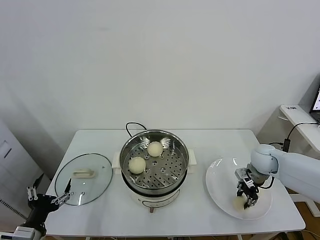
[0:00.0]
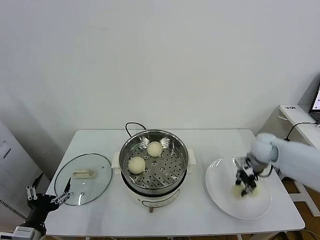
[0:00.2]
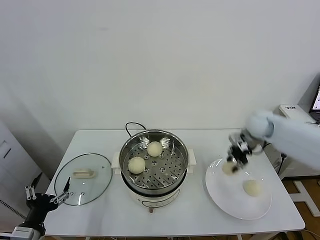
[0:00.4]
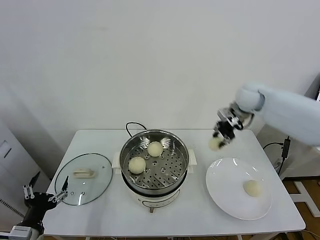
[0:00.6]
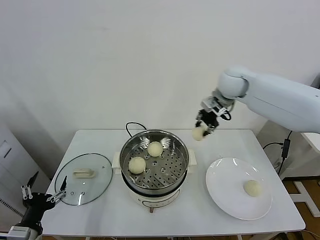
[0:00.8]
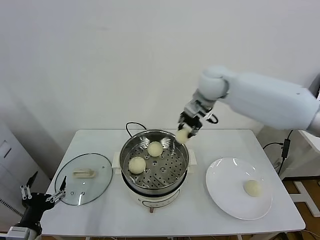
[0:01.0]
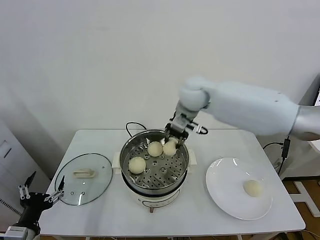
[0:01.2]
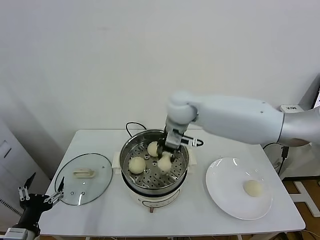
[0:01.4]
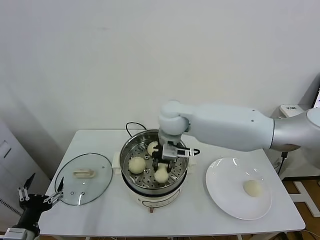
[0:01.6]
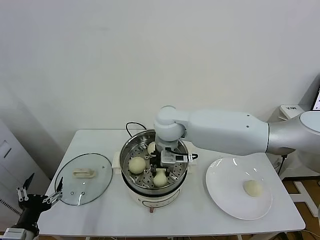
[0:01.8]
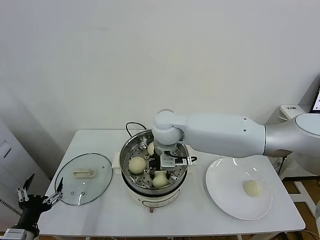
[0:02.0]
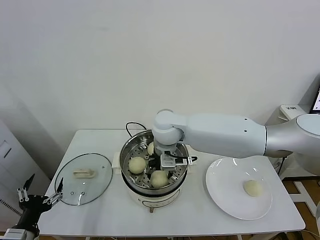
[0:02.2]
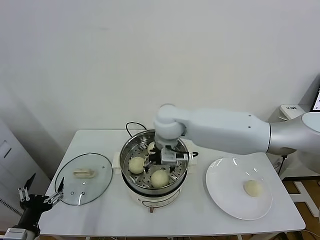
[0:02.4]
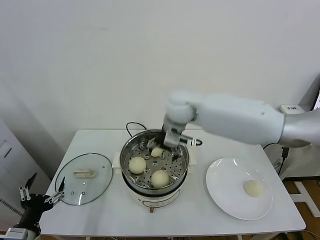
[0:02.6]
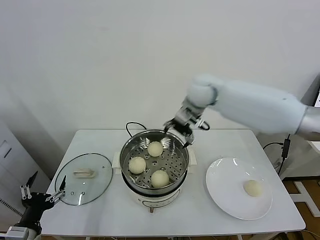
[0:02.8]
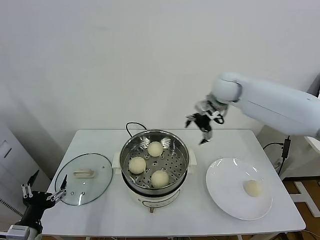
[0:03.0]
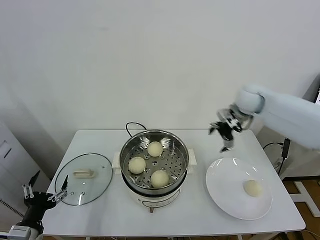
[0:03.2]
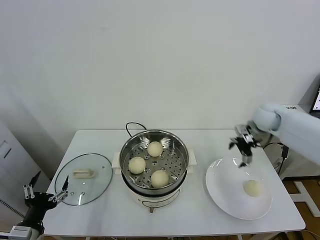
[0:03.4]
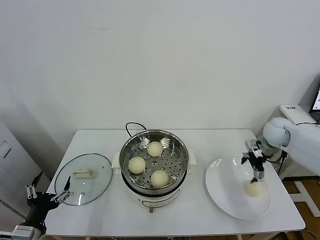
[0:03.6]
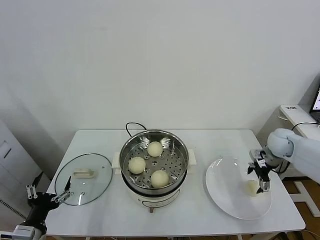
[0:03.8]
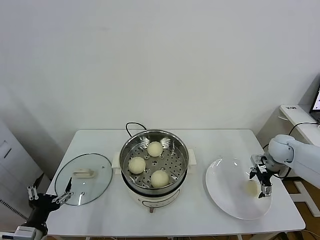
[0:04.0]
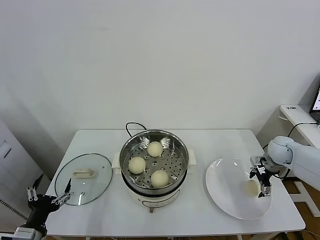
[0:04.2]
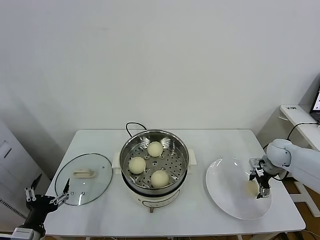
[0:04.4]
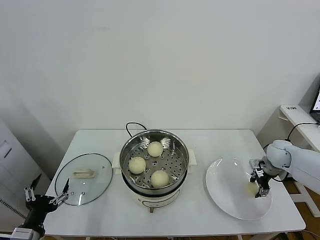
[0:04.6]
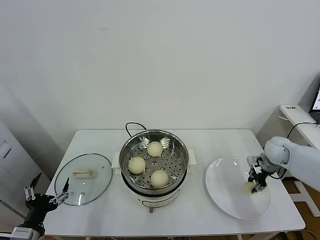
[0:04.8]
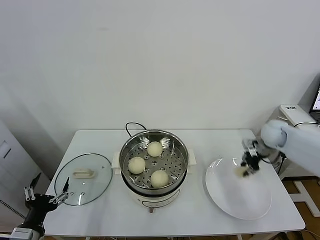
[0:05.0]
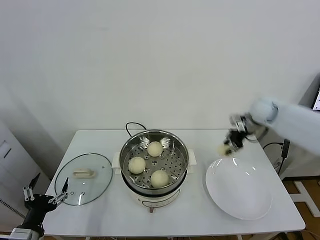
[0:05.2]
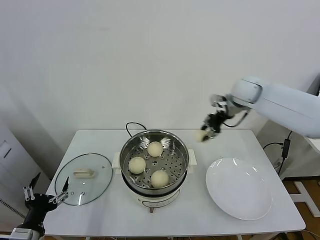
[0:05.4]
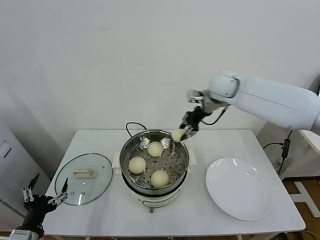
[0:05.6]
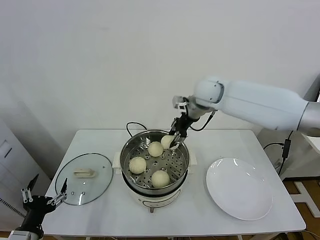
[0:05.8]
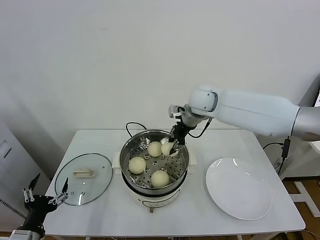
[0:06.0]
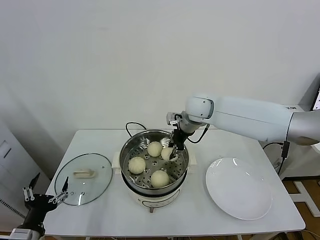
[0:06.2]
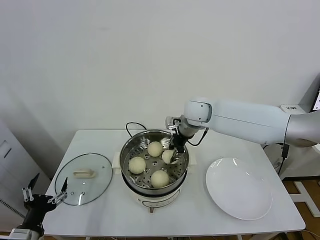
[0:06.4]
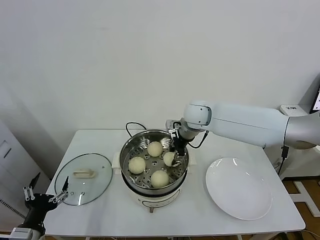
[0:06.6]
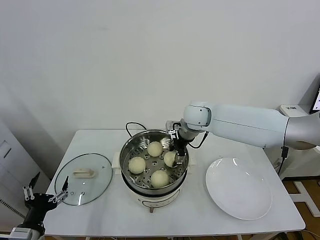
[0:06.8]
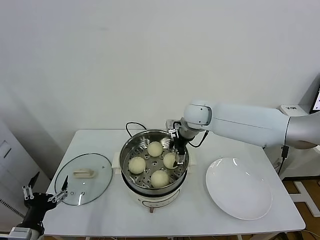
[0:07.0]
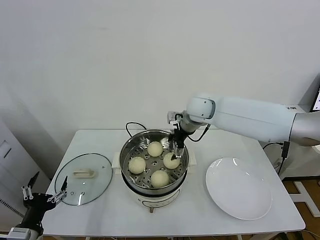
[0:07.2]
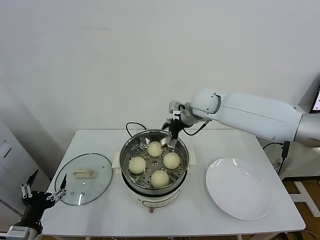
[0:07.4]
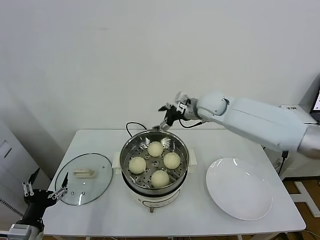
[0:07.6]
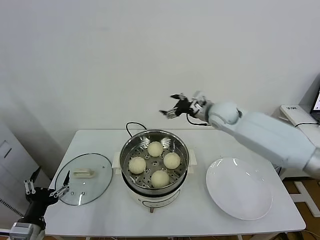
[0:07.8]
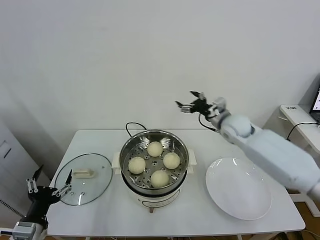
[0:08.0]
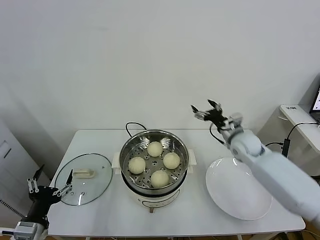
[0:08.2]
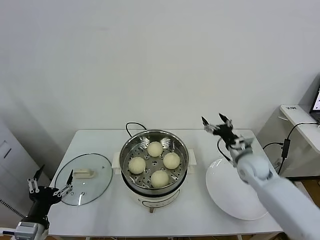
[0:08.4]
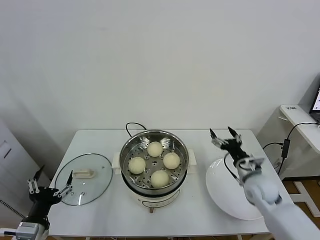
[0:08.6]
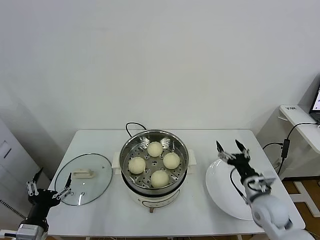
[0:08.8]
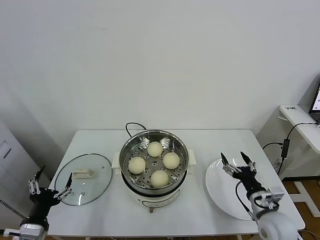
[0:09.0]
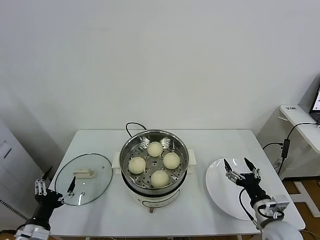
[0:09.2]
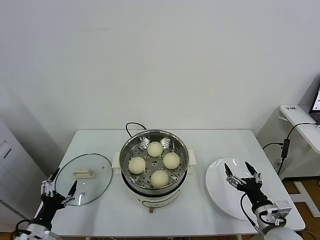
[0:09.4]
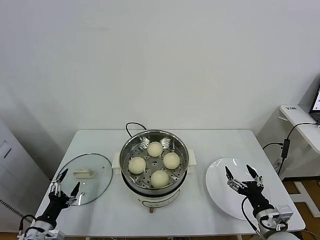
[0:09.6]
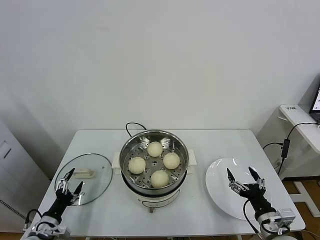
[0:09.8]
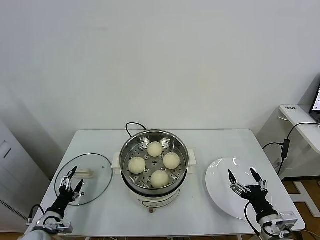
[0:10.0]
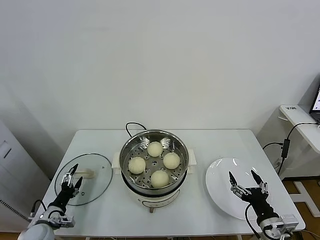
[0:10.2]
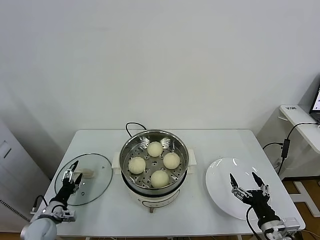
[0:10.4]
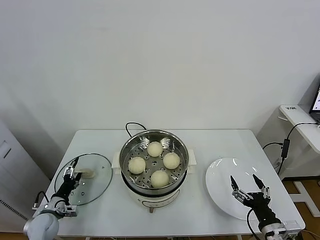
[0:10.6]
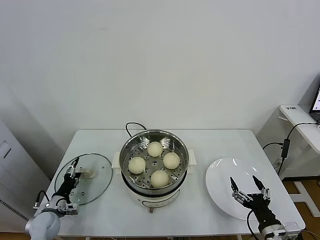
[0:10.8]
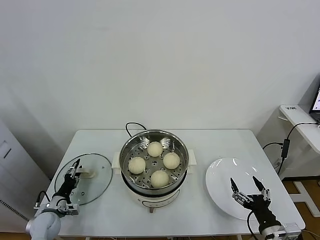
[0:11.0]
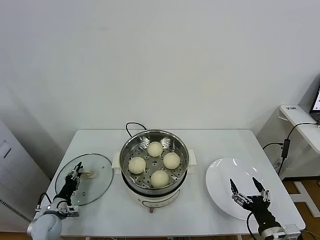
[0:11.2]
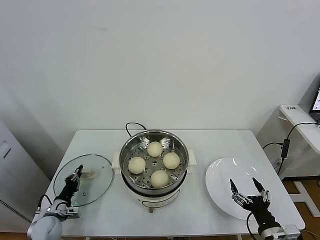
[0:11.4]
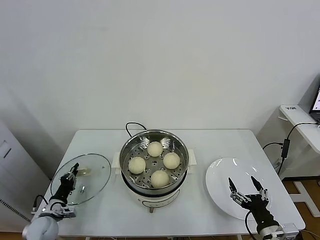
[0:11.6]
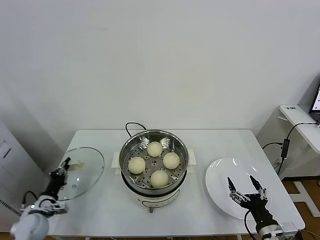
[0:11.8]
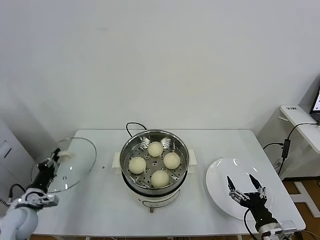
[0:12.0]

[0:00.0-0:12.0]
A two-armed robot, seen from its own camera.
Task of the whole recording: take steamed baozi put them in steamer.
Step, 0:00.0 to 0:02.2: Place the baozi on the steamer with right gripper.
Step, 0:02.4 to 0:04.6: Grasp the baozi in the plate with right gripper.
Step, 0:04.8 to 0:07.0: Place the baozi on the steamer with right gripper.
Step, 0:07.2 to 0:11.4: Grasp the pot lid with left gripper.
0:00.0 to 0:01.6: The right gripper travels to the left and upward by some 40 cm.
0:01.6 to 0:03.0: The right gripper goes some 20 cm to the right and forward, and opens its fingers.
0:03.0 to 0:04.4: The right gripper shifts approximately 30 cm downward and to the right.
0:04.4 to 0:06.0: The right gripper shifts roughly 35 cm to the left and upward, and closes.
0:06.0 to 0:07.6: The right gripper opens.
0:07.6 to 0:09.0: The right gripper goes some 40 cm backward, downward and to the right.
0:09.0 to 0:10.4: The left gripper is displaced downward, forward and to the left by roughly 20 cm. Meanwhile the right gripper moves backward, about 10 cm.
0:10.4 to 0:12.0: The left gripper shifts some 5 cm upward, and closes up.

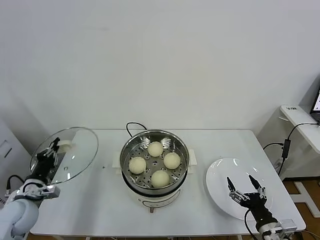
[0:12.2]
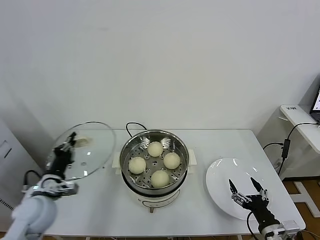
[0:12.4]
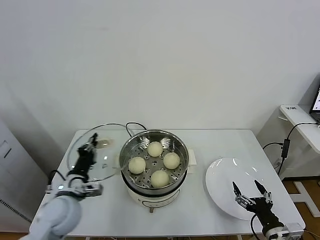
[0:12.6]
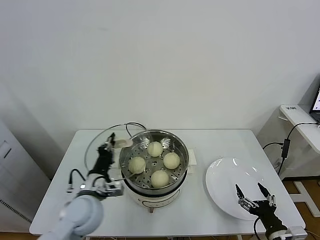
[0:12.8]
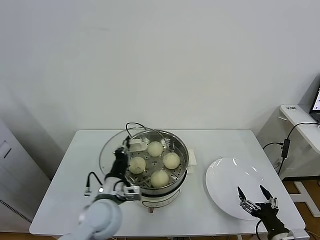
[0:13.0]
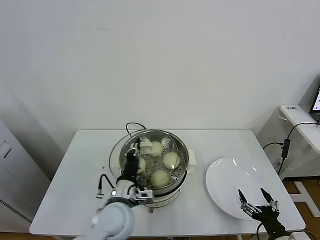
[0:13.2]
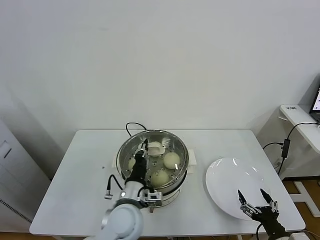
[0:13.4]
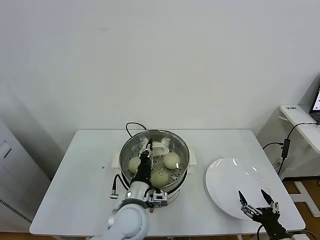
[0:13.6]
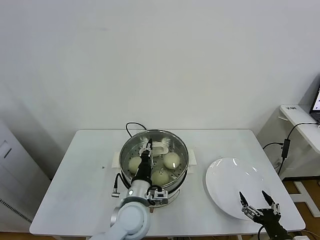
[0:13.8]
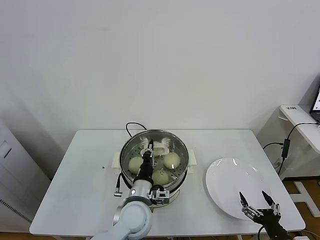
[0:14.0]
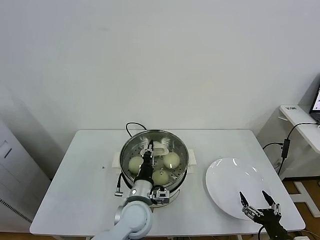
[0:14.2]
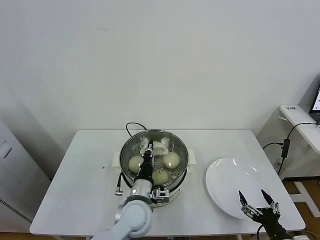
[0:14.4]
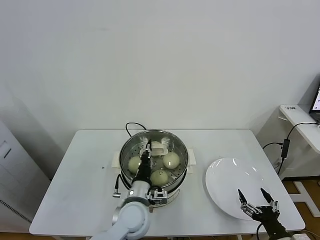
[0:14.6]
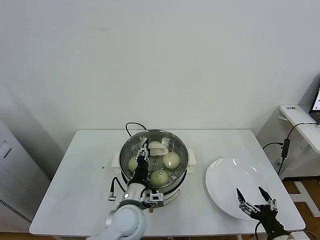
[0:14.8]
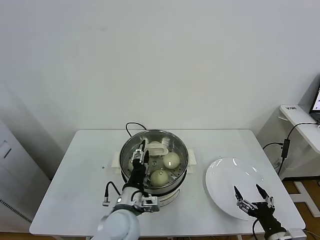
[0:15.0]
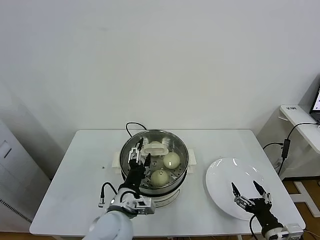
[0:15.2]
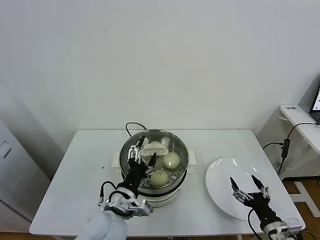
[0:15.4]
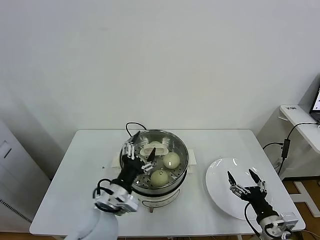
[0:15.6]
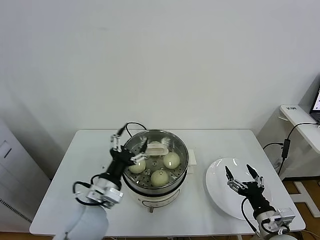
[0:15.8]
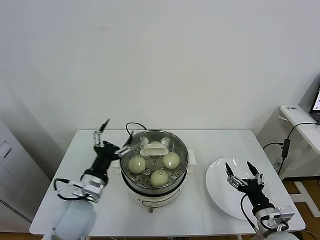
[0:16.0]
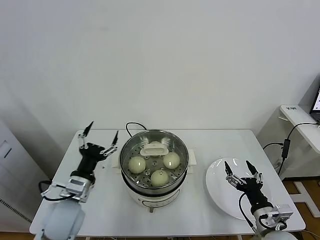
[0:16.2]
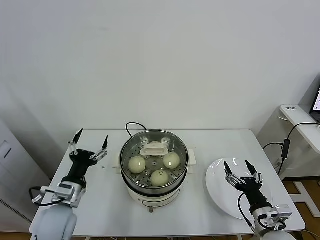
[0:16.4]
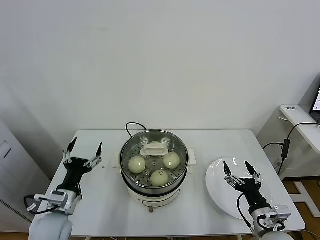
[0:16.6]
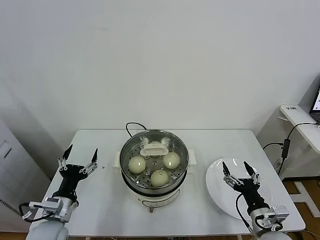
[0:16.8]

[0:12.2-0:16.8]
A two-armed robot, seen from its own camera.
Task of the whole recording: take steamed baozi put them in steamer.
Step, 0:12.2 to 0:15.2: Place the pot lid on the steamer with left gripper.
0:12.2 to 0:13.8: The left gripper shifts some 35 cm to the right, while the right gripper ends up some 5 cm from where it was.
0:13.8 to 0:15.2: The left gripper shifts by about 5 cm, and opens up.
0:15.2 to 0:16.8: The left gripper goes roughly 20 cm to the left. The right gripper travels forward by approximately 5 cm.

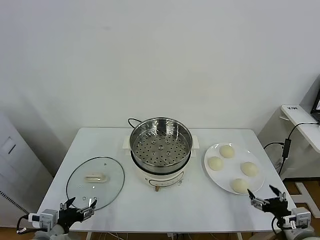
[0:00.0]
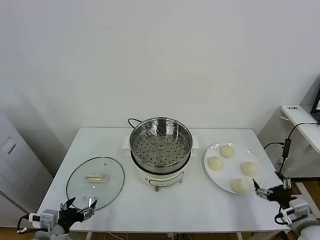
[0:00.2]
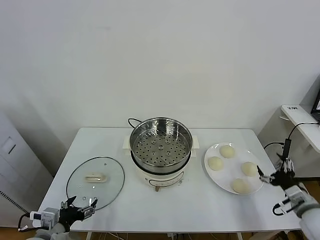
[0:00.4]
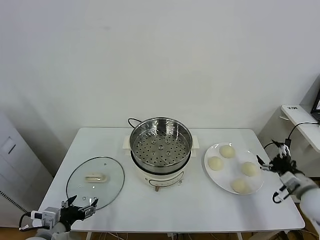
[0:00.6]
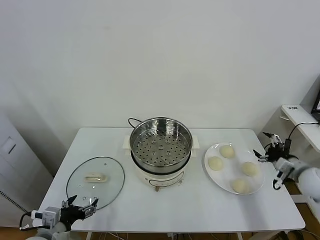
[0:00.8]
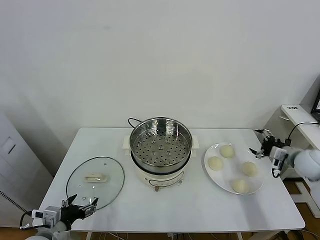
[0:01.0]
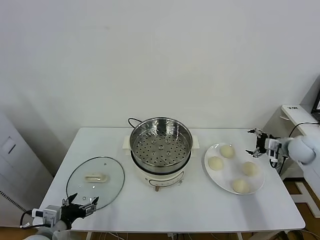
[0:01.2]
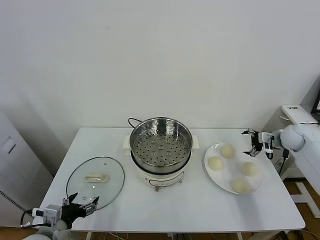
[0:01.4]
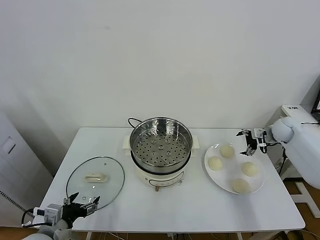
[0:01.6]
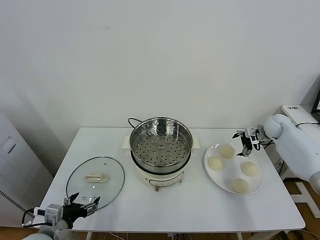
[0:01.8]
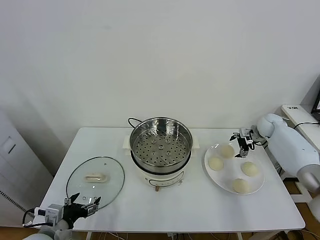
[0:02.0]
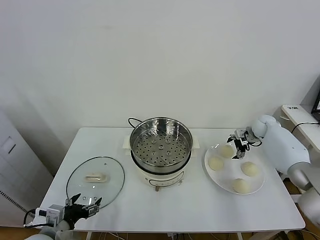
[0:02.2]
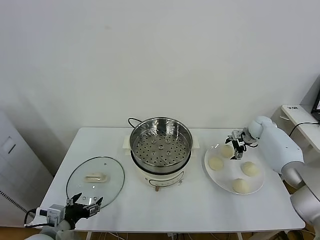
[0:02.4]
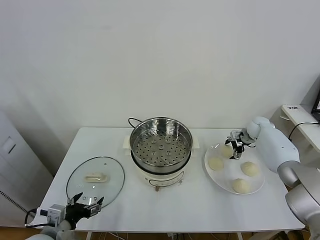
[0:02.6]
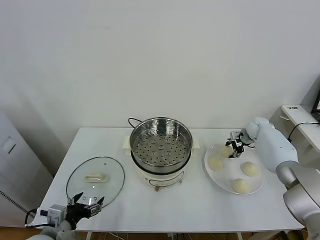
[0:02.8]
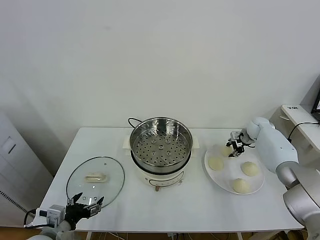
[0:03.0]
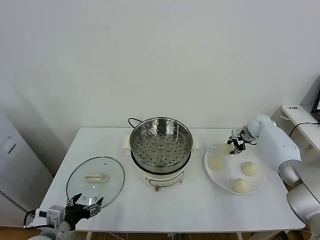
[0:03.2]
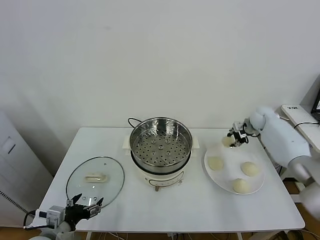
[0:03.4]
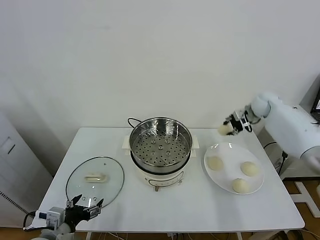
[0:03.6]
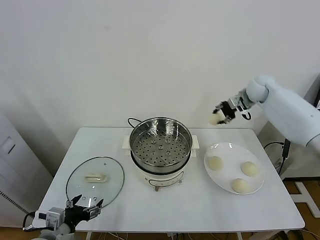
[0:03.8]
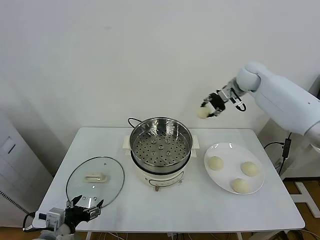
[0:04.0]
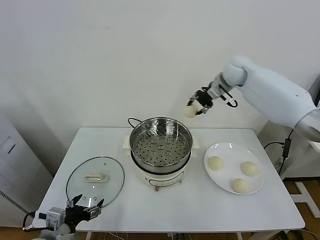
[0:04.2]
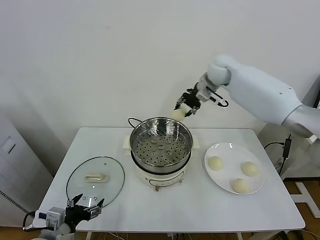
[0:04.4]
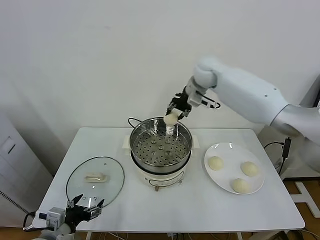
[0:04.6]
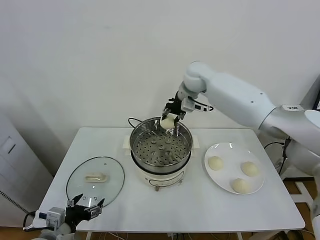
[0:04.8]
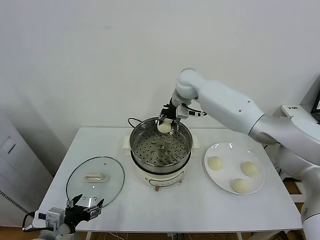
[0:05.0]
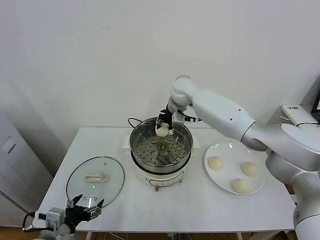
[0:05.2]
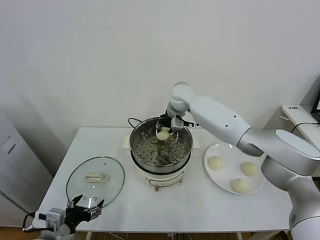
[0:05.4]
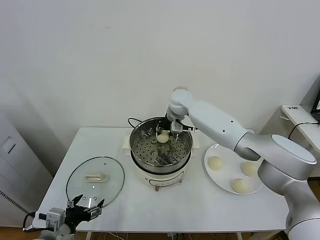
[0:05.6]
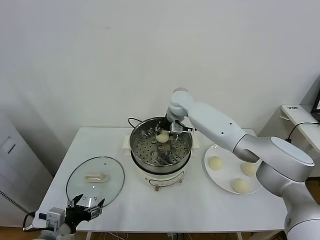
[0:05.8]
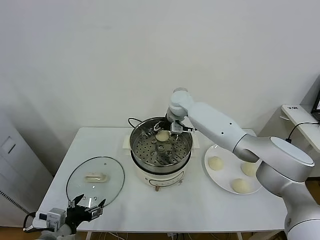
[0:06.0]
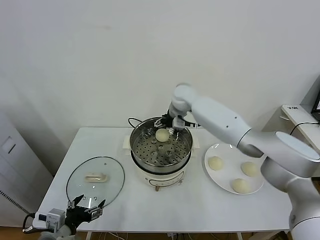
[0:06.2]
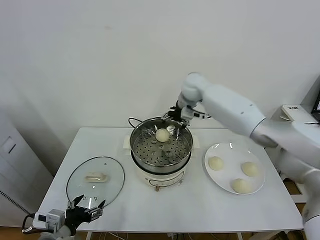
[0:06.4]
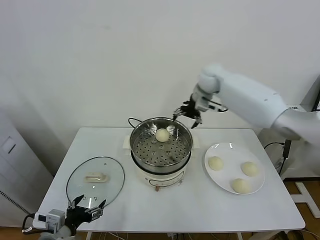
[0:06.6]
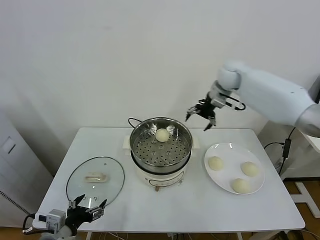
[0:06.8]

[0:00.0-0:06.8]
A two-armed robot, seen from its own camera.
Task of the whole recording: take steamed baozi put them in steamer.
Step, 0:00.0 to 0:02.8: Grasp the baozi in the plate with right gripper.
Step, 0:03.0 to 0:06.0: Place the baozi on the steamer with right gripper.
0:01.4 to 0:02.8: The right gripper travels forward, downward and to the left by approximately 10 cm, and closes its fingers.
0:02.8 to 0:04.0: The right gripper moves upward and to the left, roughly 30 cm.
0:04.0 to 0:05.4: The right gripper travels to the left and downward by some 25 cm.
0:05.4 to 0:06.8: The right gripper is displaced to the right and upward by about 20 cm, and opens its fingers.
